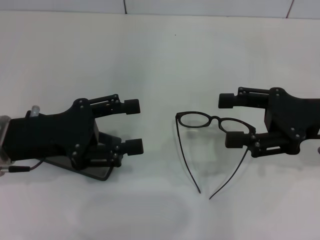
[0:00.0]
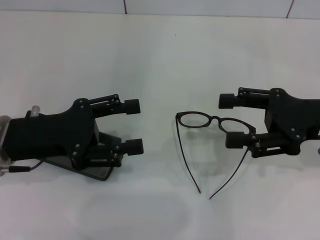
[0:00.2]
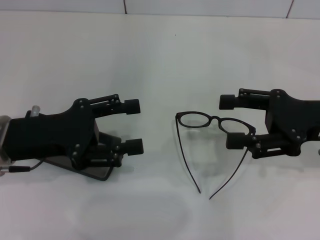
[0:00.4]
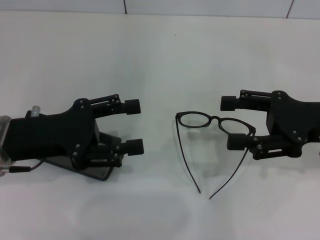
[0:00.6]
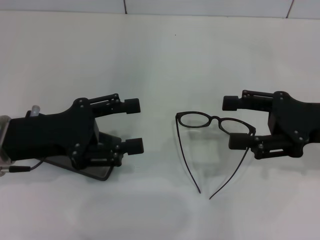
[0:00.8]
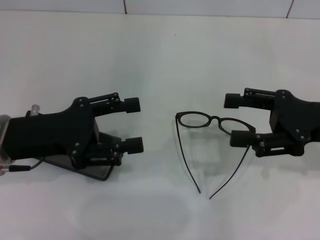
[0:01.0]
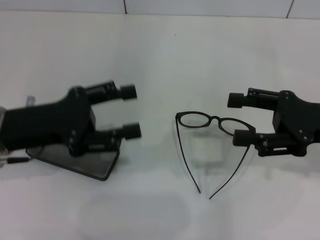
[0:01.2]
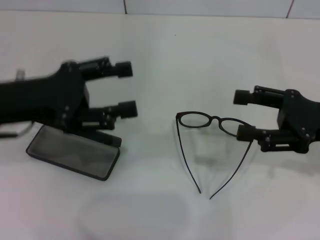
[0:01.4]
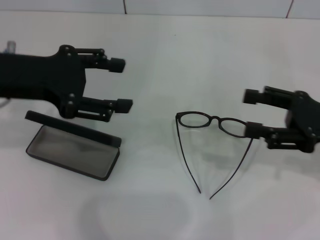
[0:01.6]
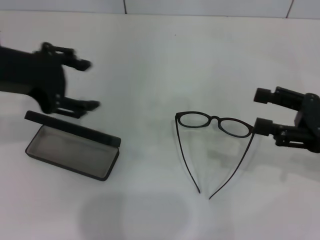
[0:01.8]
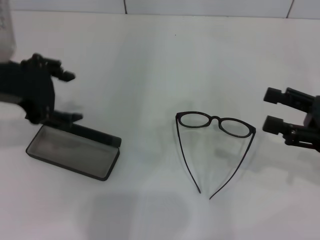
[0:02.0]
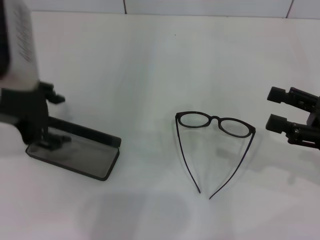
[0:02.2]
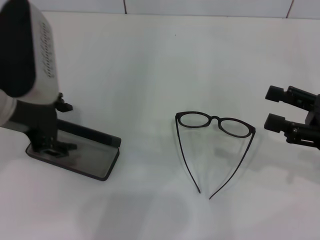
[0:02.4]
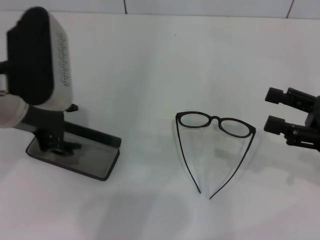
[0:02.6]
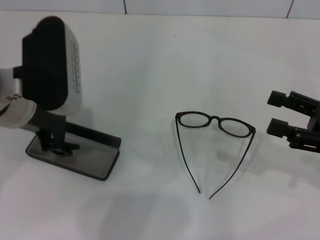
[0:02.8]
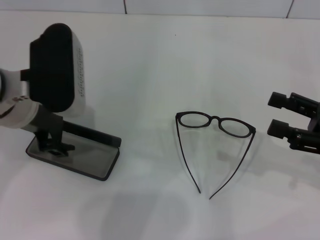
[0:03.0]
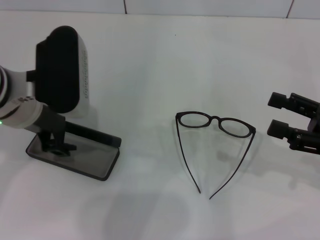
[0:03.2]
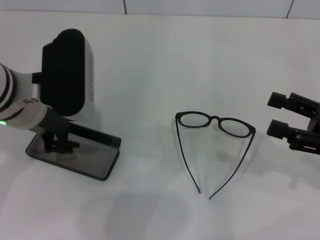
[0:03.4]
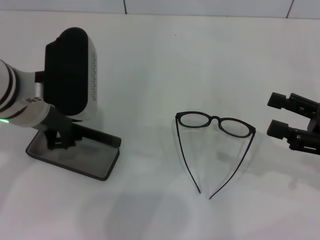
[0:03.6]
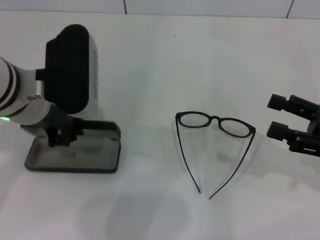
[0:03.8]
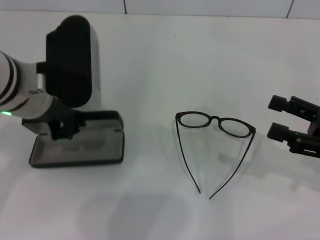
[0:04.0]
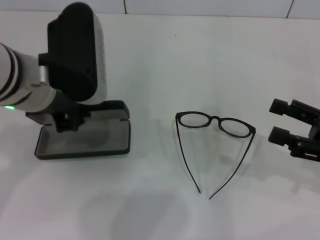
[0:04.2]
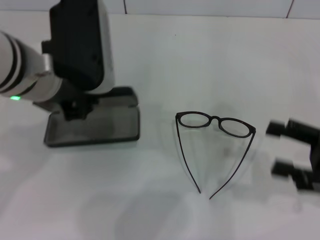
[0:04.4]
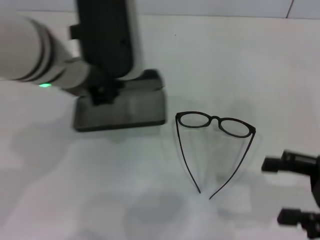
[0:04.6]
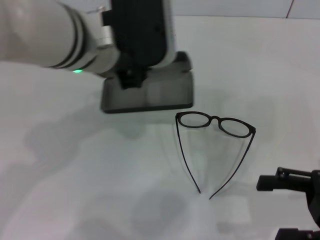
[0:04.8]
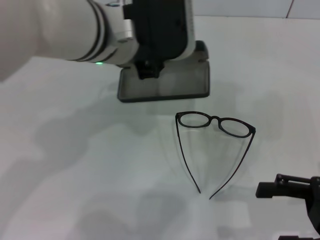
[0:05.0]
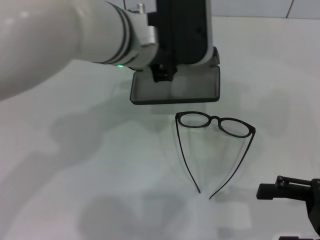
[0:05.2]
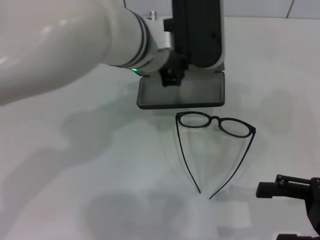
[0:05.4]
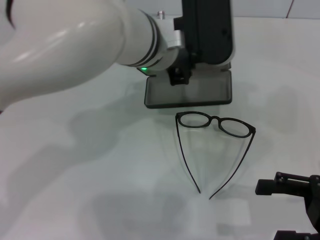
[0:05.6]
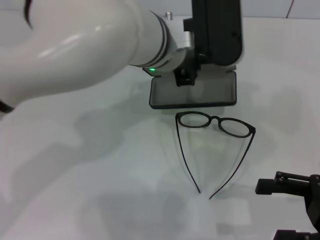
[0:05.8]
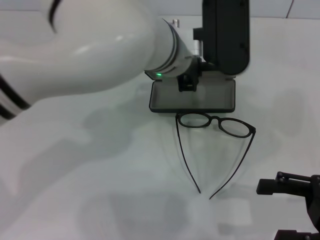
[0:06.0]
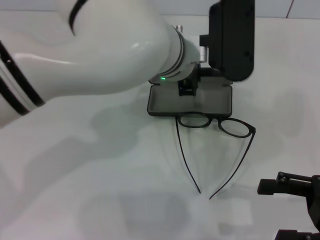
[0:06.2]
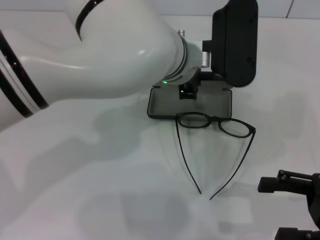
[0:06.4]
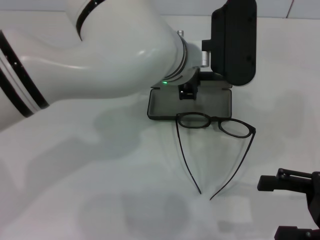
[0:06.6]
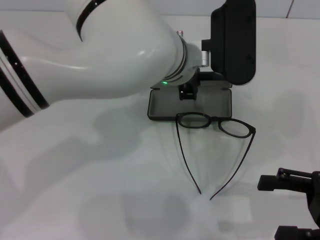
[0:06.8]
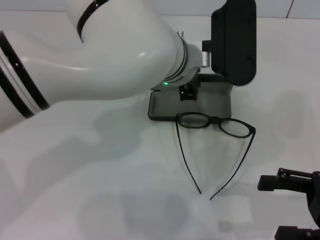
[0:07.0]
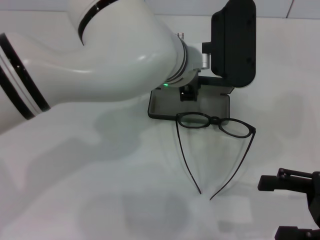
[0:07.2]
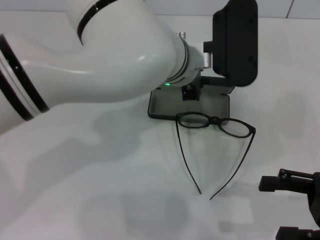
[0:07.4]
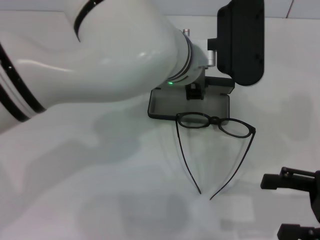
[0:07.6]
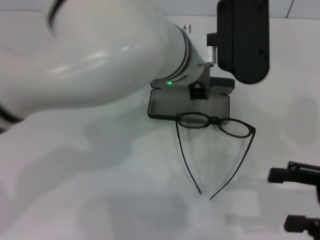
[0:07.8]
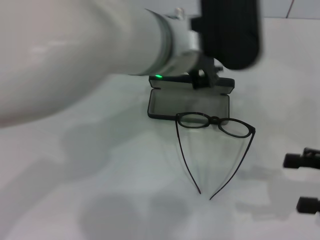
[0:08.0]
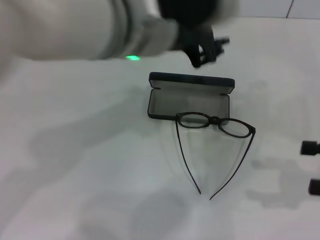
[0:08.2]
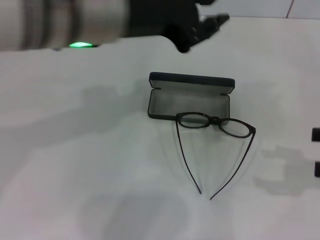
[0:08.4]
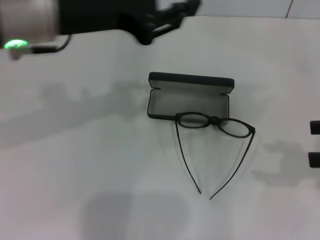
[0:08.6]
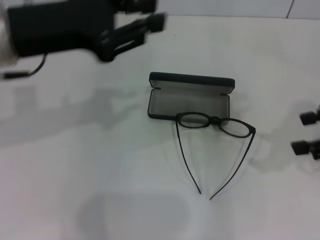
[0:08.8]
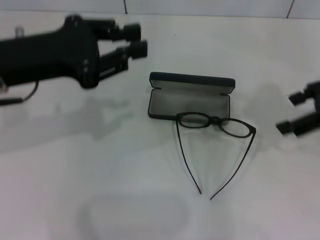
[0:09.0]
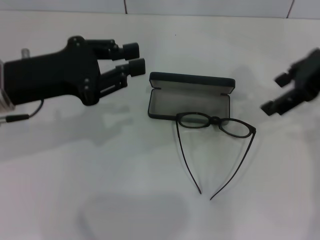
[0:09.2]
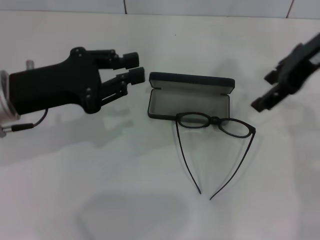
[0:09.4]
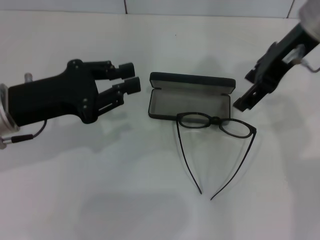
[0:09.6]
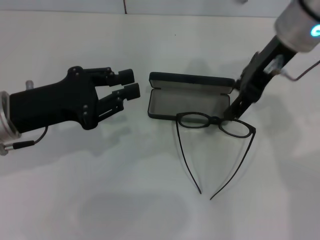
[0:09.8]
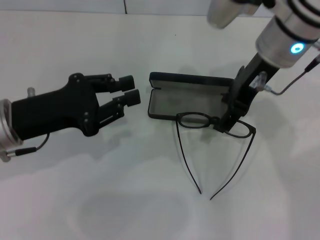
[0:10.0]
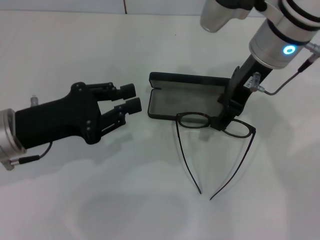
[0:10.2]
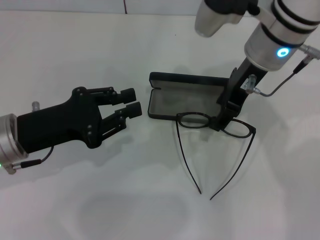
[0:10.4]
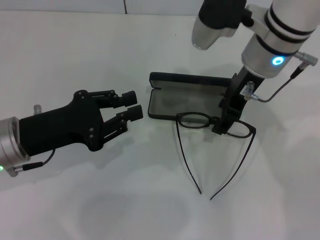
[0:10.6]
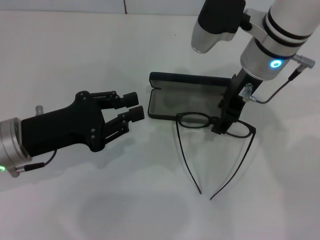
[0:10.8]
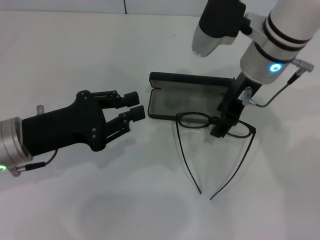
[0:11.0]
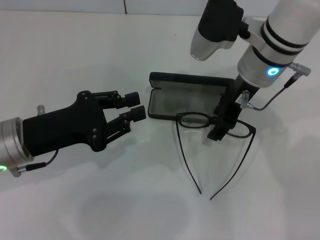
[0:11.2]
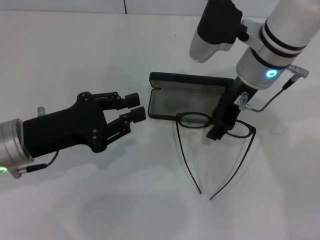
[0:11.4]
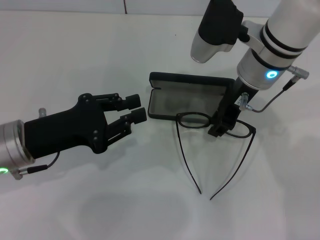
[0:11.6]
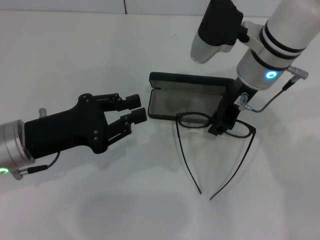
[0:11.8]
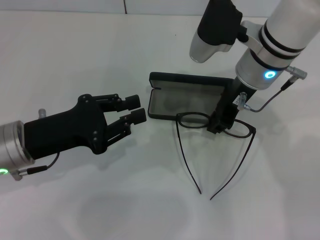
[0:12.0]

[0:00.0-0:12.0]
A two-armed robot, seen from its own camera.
Step, 0:00.0 to 0:03.4: Grab the glasses case with your left hand.
Step, 0:03.6 to 0:07.4: Place the glasses case in the center of the table with your left hand.
0:00.0 to 0:01.6: The left gripper moves upward, some 10 cm.
0:01.6 to 0:03.0: The left gripper goes some 5 cm to the right.
0:03.0 to 0:04.4: The left gripper moves about 5 cm, and closes.
0:04.4 to 0:06.0: The left gripper travels to the right by about 15 cm.
0:06.0 to 0:07.6: There are only small adjustments of the grippers.
0:07.6 to 0:09.0: The right gripper is displaced upward and forward by approximately 20 cm; the left gripper is displaced to the left by about 25 cm.
0:09.0 to 0:10.4: The left gripper is displaced downward by roughly 10 cm, while the right gripper travels to the left and forward by roughly 15 cm.
0:10.4 to 0:12.0: The right gripper closes.

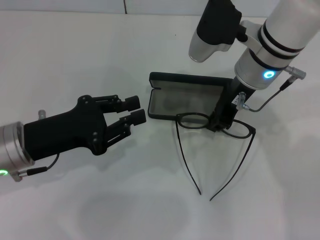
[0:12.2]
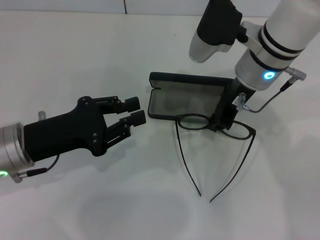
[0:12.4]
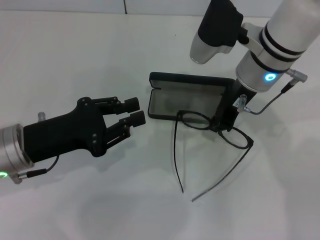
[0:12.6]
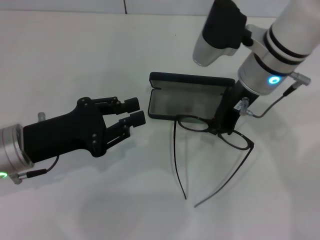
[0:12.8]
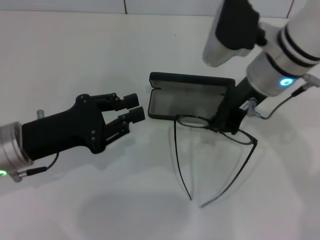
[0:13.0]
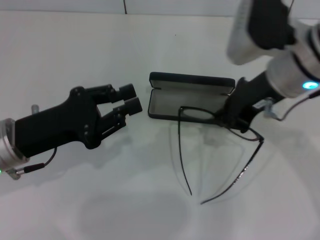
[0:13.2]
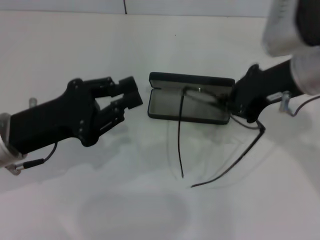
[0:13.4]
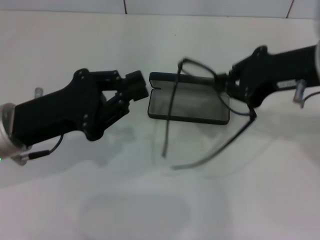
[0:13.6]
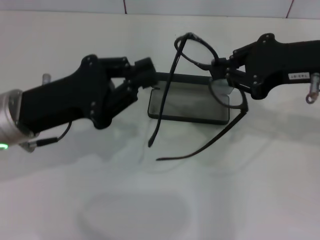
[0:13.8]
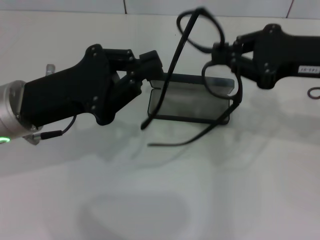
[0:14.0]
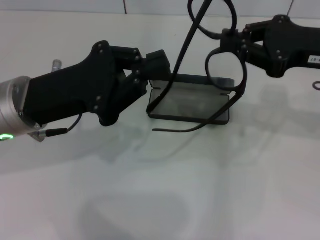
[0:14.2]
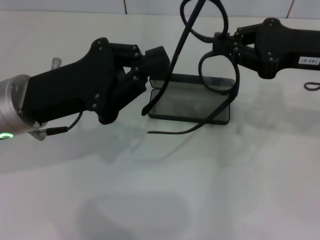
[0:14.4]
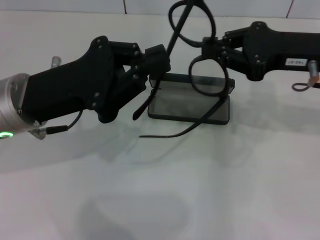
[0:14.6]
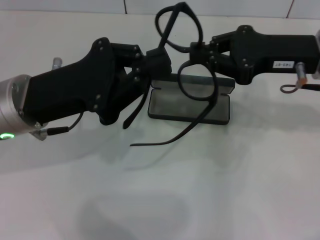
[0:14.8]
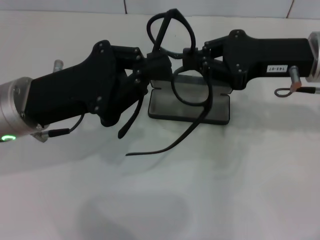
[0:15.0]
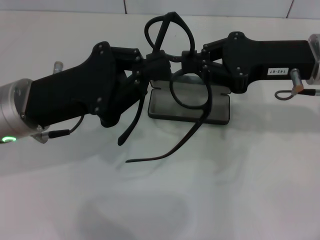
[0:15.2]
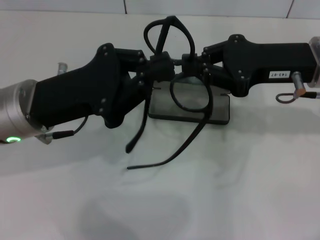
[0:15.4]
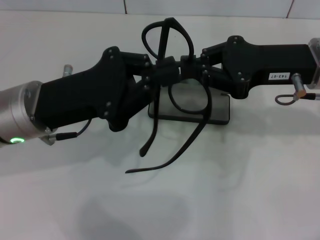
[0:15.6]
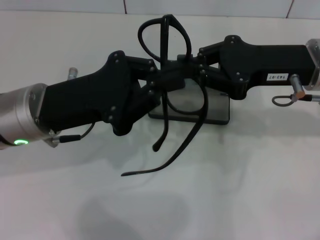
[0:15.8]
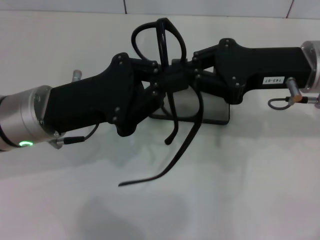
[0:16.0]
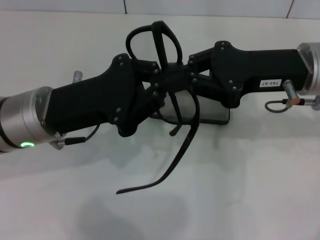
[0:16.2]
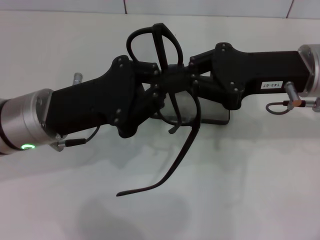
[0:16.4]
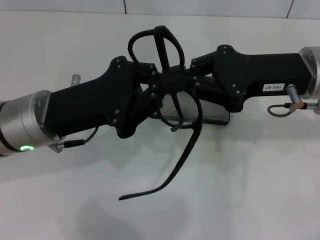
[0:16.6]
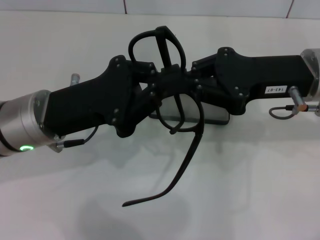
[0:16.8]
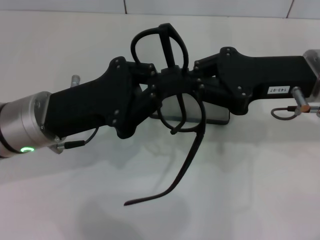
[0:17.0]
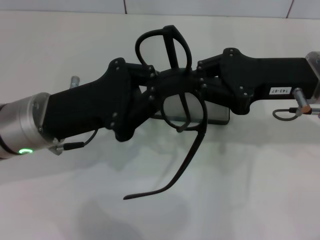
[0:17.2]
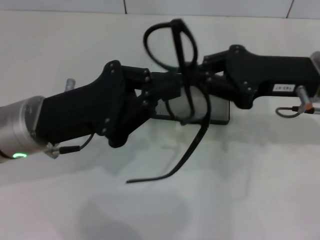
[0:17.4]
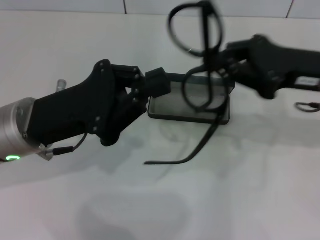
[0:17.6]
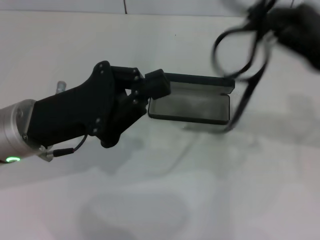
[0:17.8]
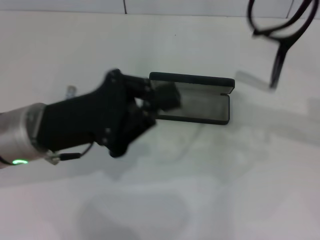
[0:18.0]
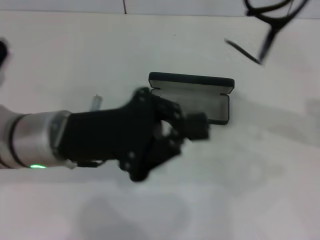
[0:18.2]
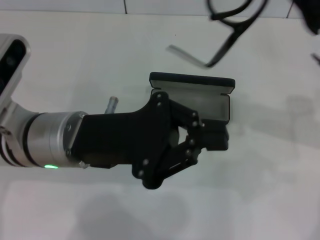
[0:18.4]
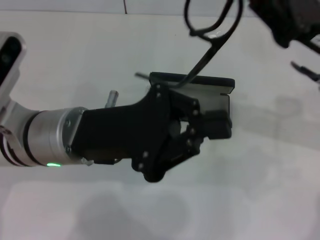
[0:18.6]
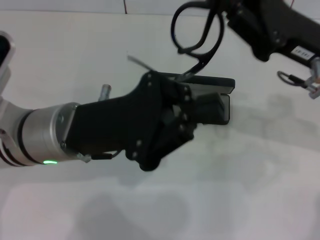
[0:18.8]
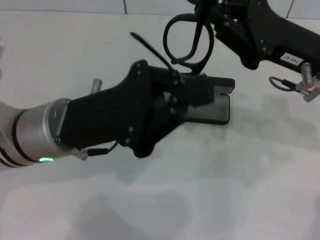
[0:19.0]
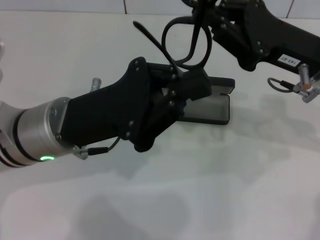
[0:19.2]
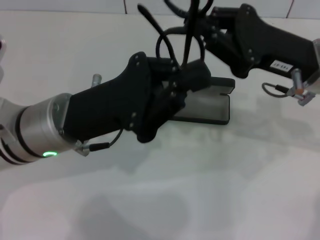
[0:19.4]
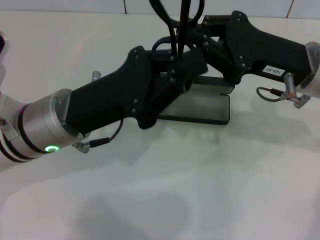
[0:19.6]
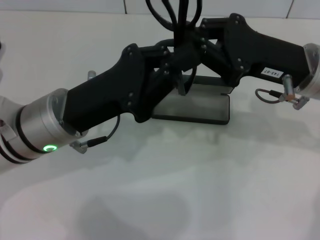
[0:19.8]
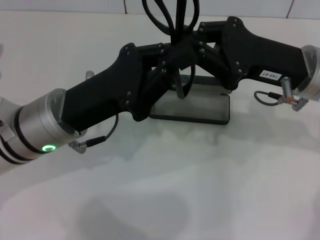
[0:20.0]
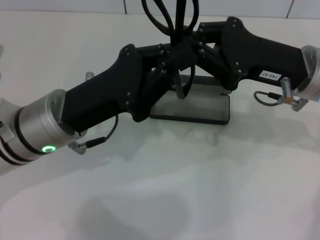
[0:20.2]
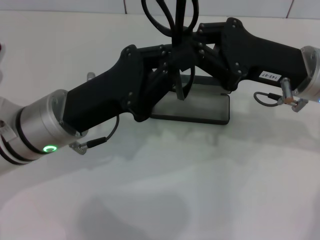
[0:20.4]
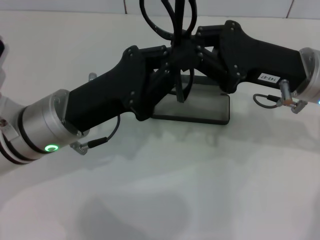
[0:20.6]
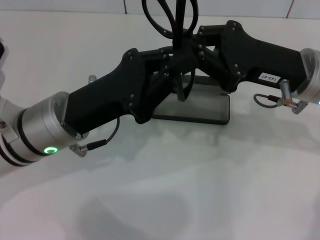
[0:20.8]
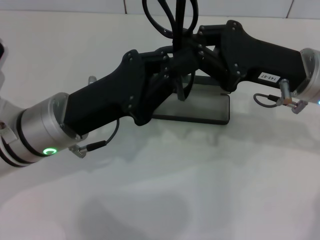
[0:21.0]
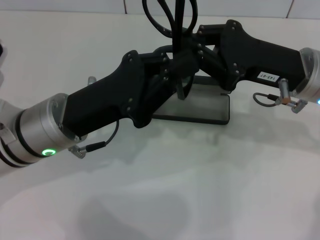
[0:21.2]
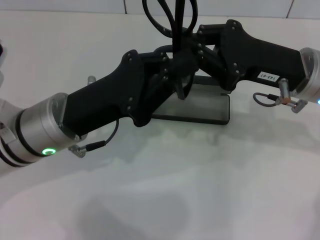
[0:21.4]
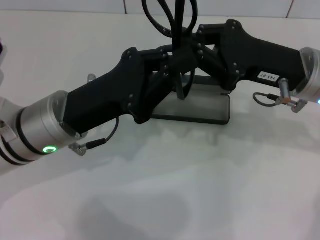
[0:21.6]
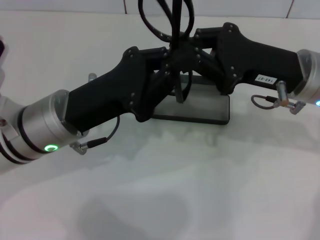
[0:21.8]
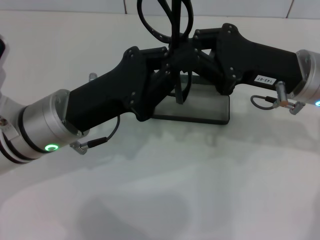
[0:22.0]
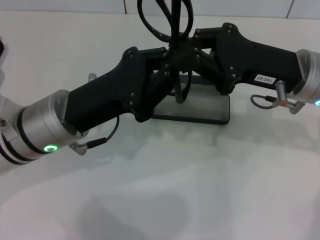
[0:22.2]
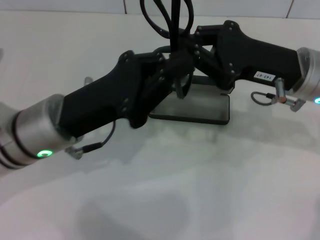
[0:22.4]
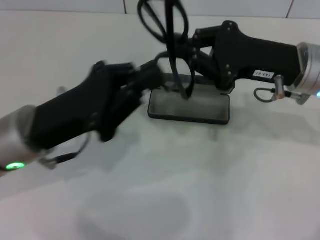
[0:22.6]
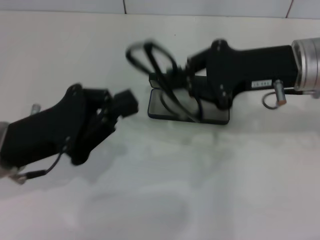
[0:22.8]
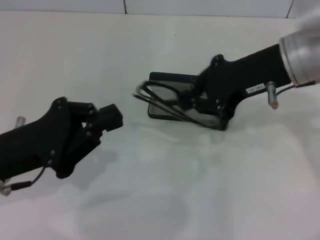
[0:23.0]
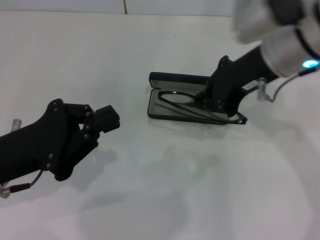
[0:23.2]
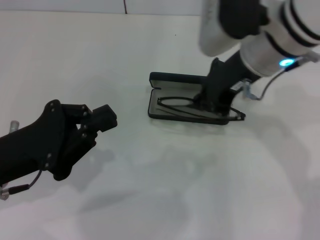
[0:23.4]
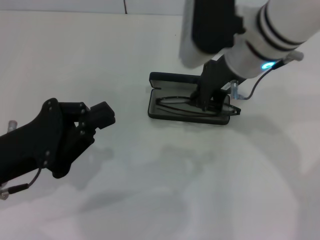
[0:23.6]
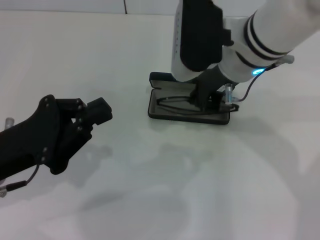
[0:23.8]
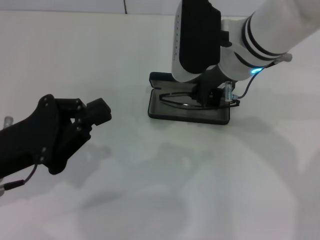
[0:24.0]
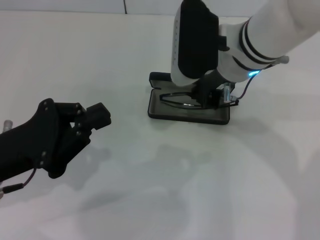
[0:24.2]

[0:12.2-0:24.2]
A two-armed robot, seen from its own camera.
Step, 0:12.8 to 0:22.2: Fold the frame with your left hand.
0:12.2 to 0:13.8: The right gripper moves to the right, backward and upward, roughly 15 cm.
0:13.8 to 0:15.2: The right gripper moves some 5 cm.
0:16.6 to 0:18.2: The right gripper travels to the right by some 5 cm.
0:18.2 to 0:19.8: The right gripper moves to the left, about 10 cm.
0:19.8 to 0:21.2: Neither gripper changes place.
0:21.2 to 0:22.6: The grippers stay close to where they were, moving slightly.
0:22.6 to 0:24.2: The left gripper travels to the left by roughly 5 cm, while the right gripper is displaced to the left by roughly 10 cm.
